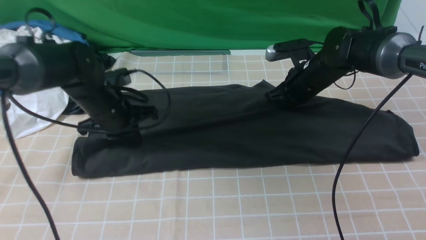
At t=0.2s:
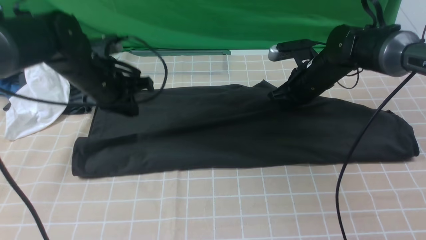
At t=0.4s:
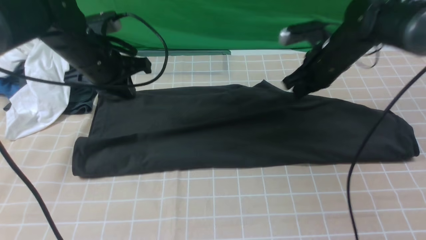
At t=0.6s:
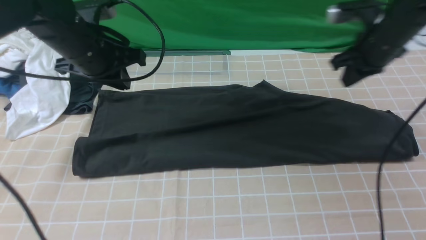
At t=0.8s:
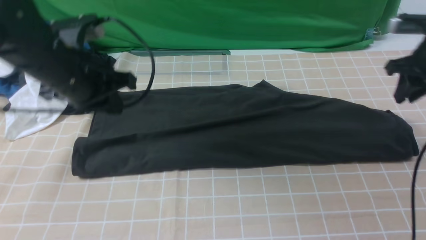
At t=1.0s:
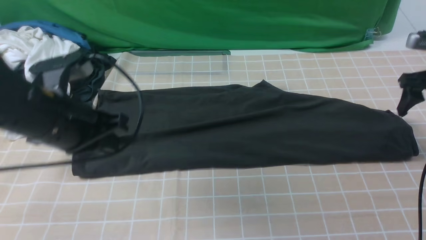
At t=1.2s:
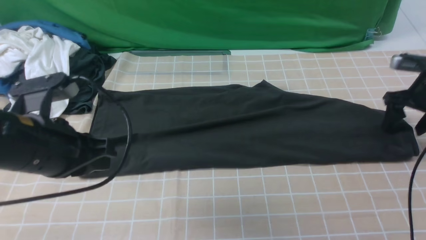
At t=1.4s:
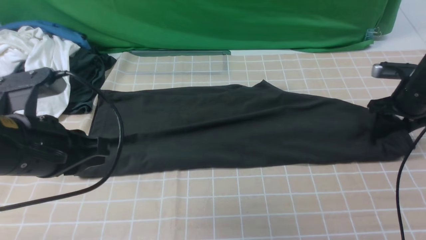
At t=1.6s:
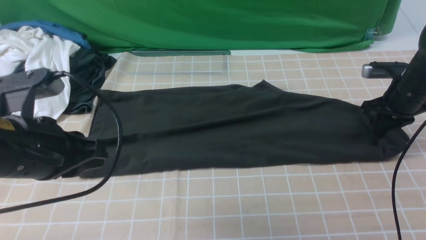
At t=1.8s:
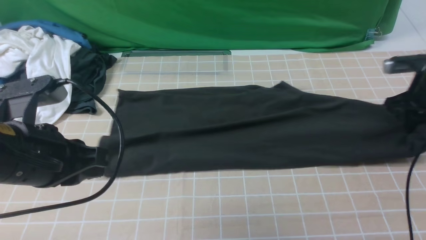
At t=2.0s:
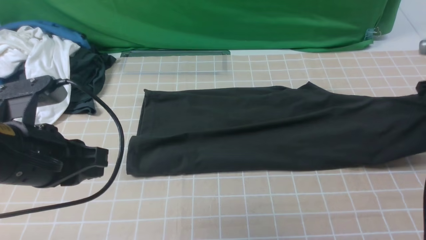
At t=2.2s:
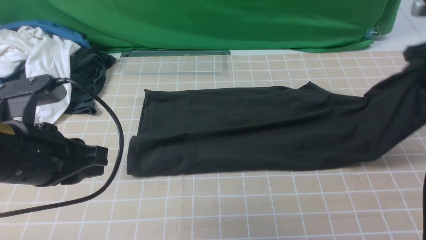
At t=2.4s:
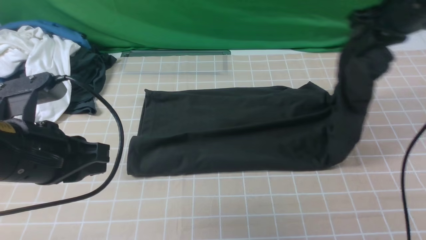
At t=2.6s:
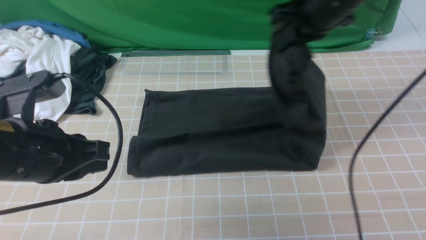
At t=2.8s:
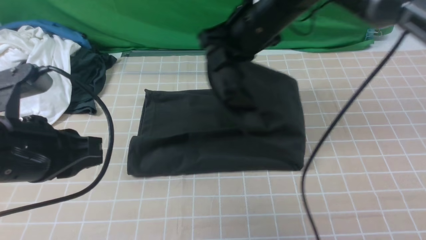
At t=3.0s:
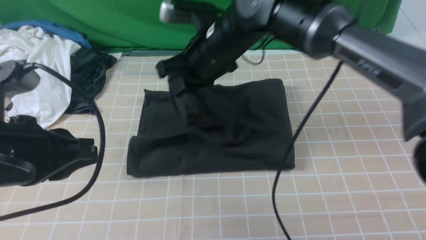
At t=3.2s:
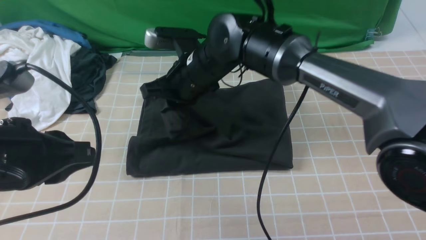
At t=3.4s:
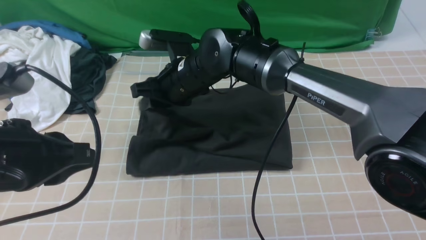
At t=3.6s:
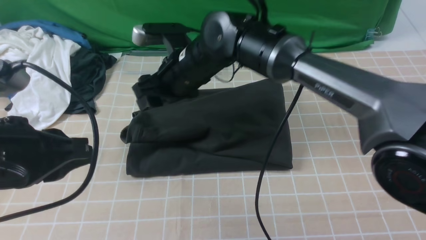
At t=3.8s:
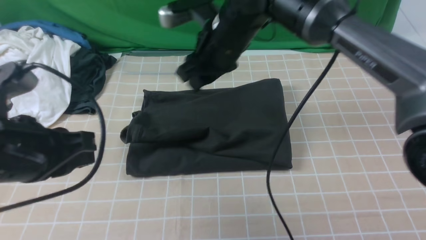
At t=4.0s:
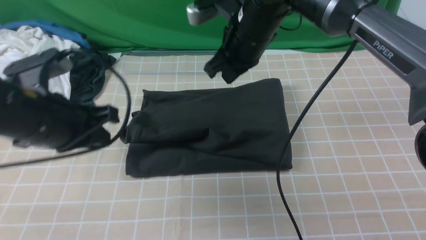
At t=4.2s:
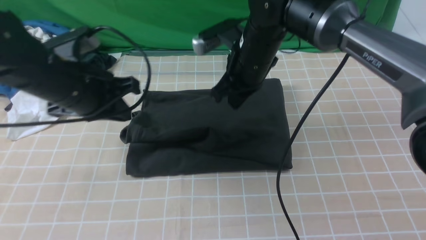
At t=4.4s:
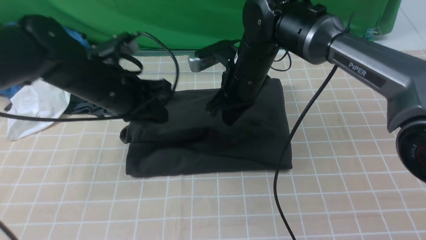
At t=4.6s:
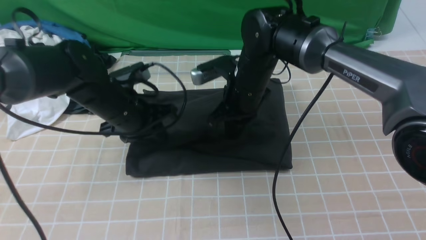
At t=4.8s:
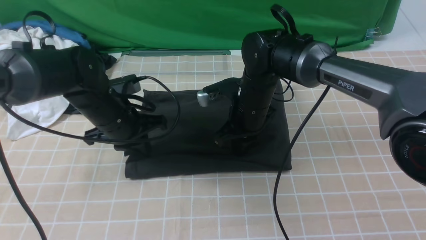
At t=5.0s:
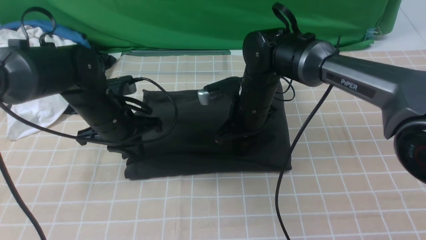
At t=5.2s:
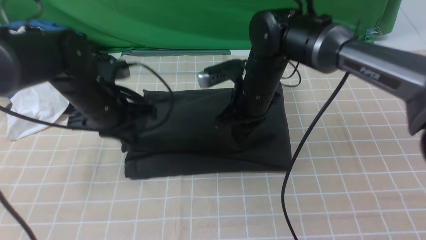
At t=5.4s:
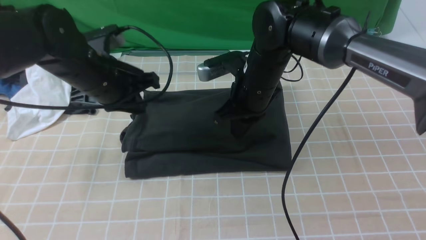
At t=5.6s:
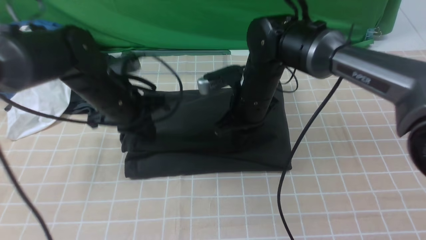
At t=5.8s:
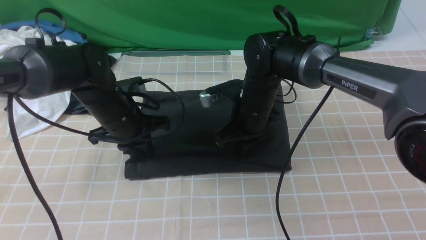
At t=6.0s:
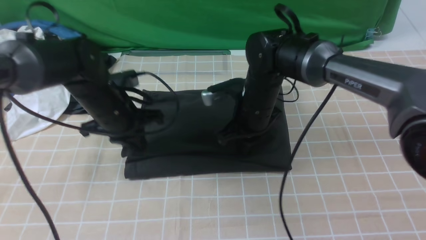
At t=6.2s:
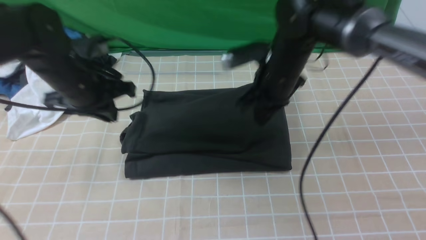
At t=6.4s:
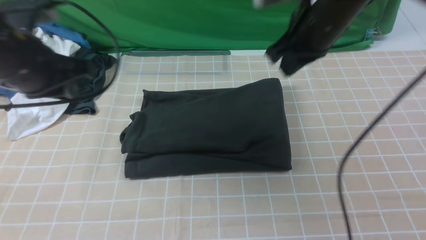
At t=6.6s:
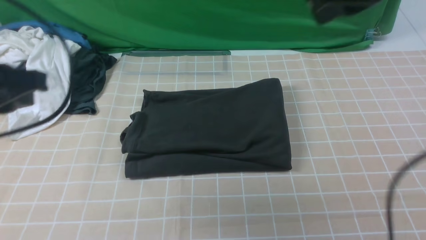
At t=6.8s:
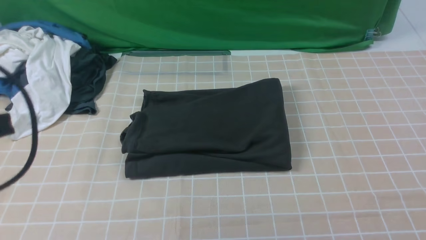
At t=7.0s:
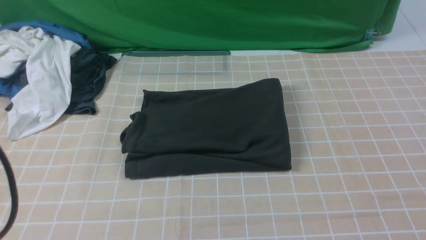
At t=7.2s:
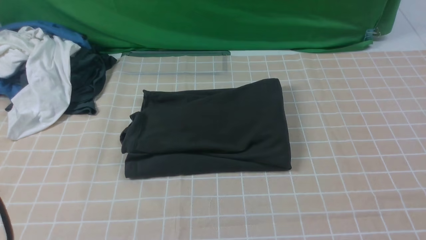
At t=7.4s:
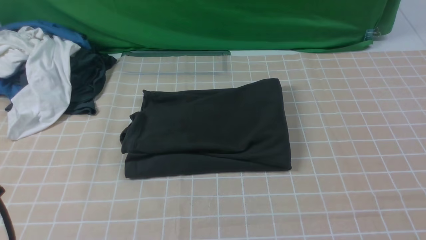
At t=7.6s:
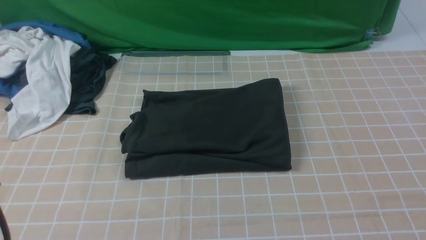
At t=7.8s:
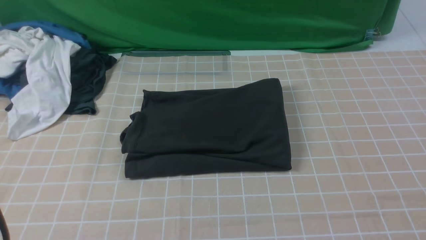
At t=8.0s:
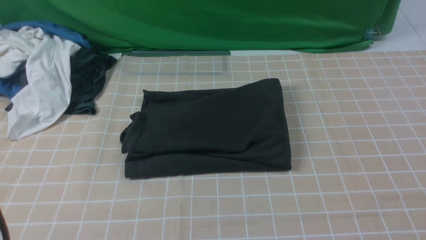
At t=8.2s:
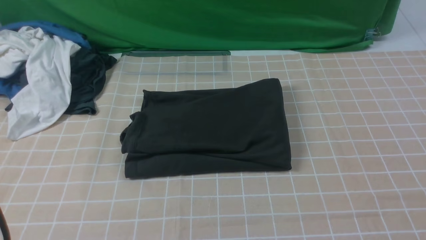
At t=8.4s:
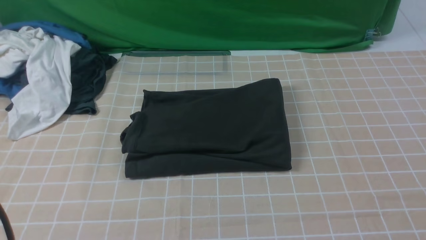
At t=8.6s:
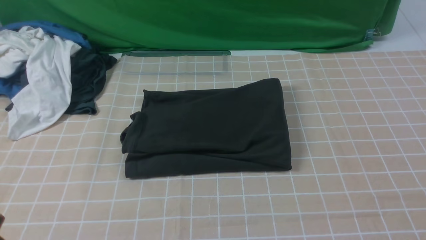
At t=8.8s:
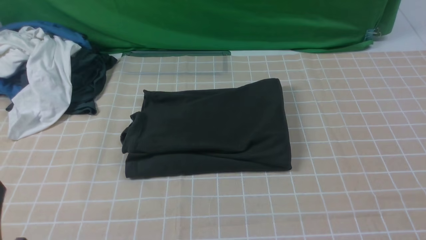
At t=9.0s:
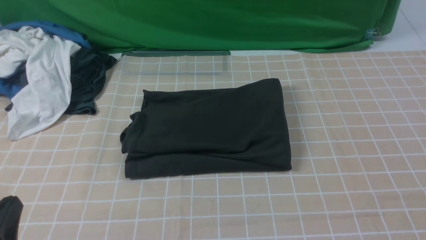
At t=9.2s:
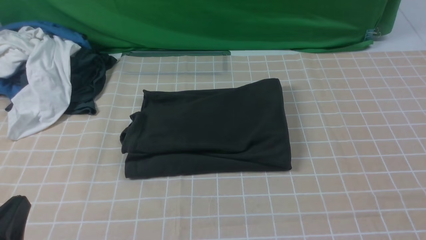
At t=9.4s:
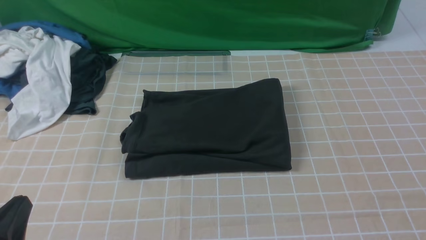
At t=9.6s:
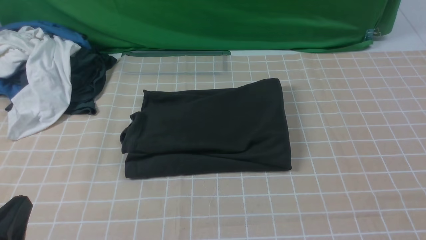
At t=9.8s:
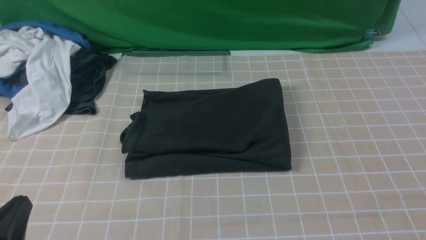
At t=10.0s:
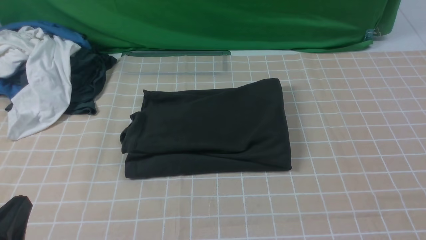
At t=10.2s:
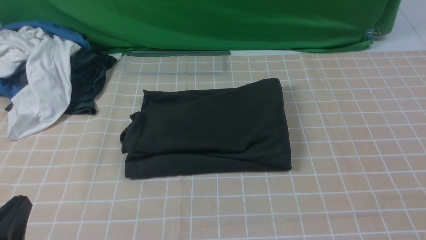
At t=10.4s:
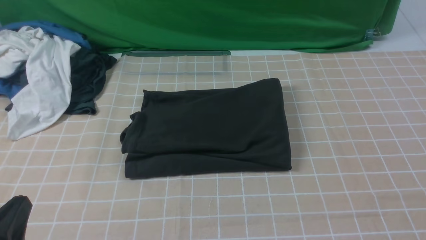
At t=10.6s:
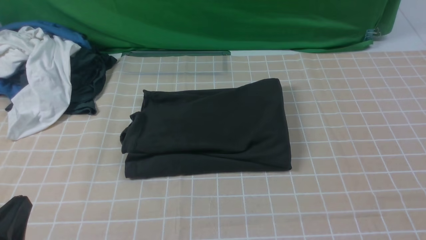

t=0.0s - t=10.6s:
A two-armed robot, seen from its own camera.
Step, t=2.0s - t=3.6s: use the right arm to drag the right edge of the fabric to the left and folds it over the left edge.
t=0.0s - t=1.6s: The left gripper travels backward and upward by some 20 cm. Meanwhile the right gripper moves to the right, some 20 cm, and opens, then closes again.
t=1.6s - t=3.0s: The right gripper shifts roughly 35 cm to the left.
t=3.0s - t=4.6s: The left gripper goes roughly 20 cm forward and downward. The right gripper shifts about 10 cm downward, and opens, then closes once more.
t=4.6s - t=6.0s: There are only small adjustments of the grippers.
t=6.0s - t=7.6s: The left gripper shifts roughly 30 cm backward. The right gripper goes roughly 40 cm backward, to the right and upward.
t=7.6s - t=9.0s: The left gripper moves downward, roughly 10 cm.

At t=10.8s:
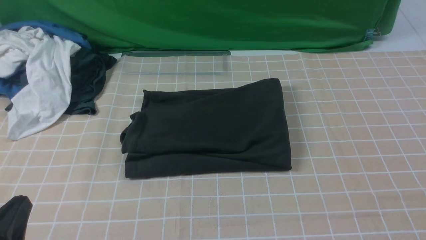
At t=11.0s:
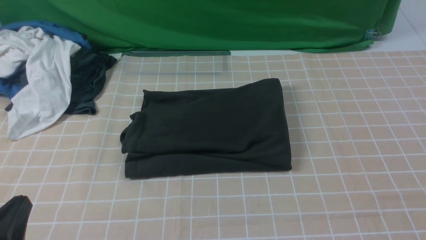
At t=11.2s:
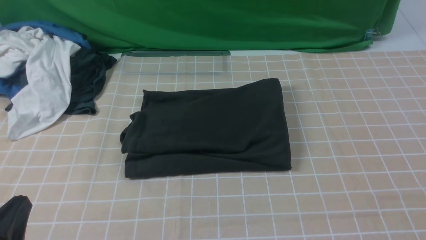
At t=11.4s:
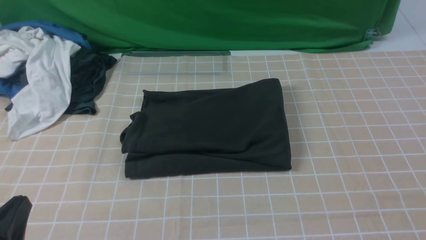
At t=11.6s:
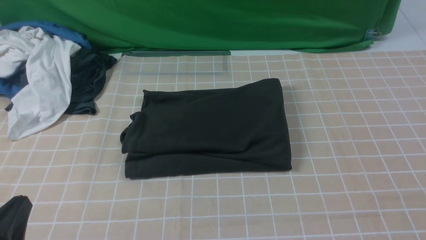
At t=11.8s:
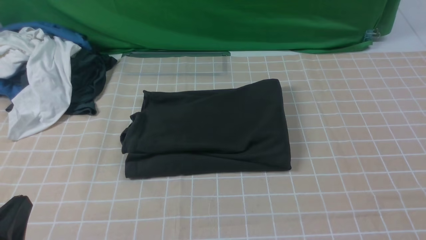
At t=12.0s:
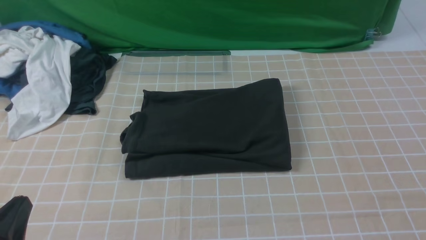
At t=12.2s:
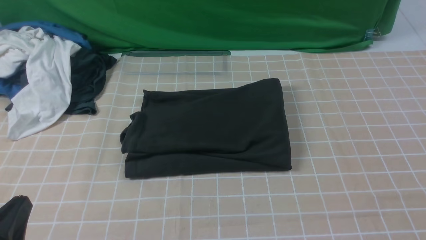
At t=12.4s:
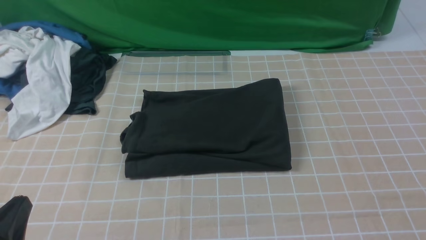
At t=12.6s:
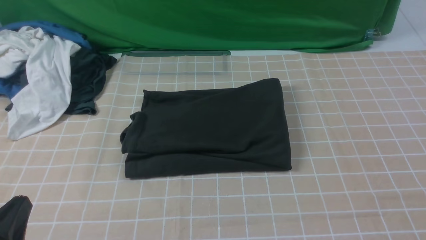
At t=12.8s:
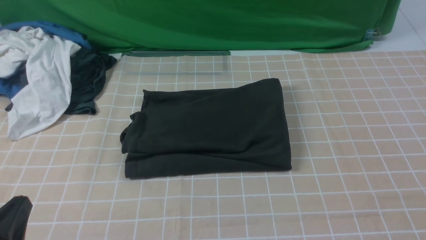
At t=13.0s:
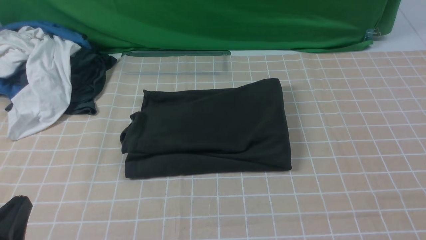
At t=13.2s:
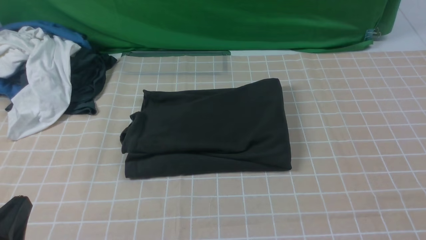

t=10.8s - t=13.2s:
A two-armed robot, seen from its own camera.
t=12.0s - t=13.2s: The two grippers keep their place.
